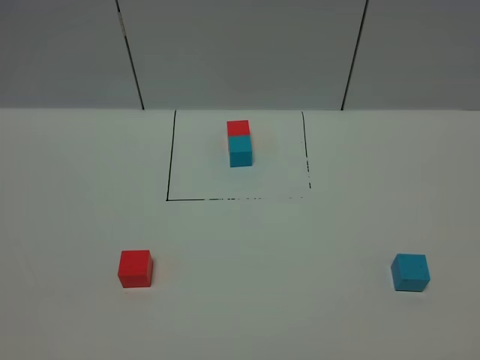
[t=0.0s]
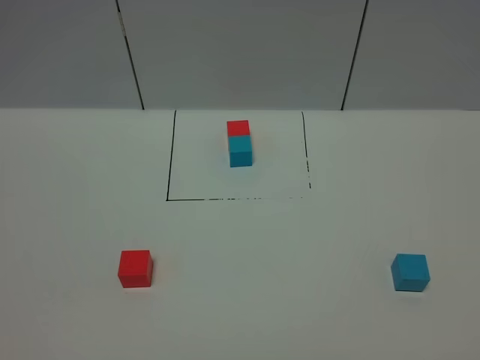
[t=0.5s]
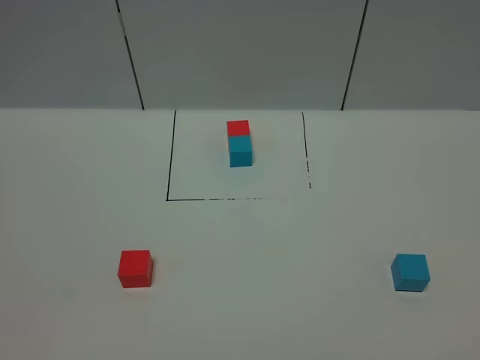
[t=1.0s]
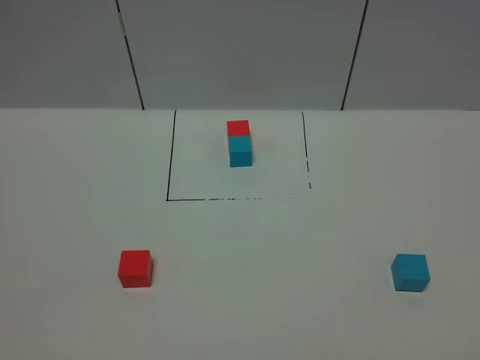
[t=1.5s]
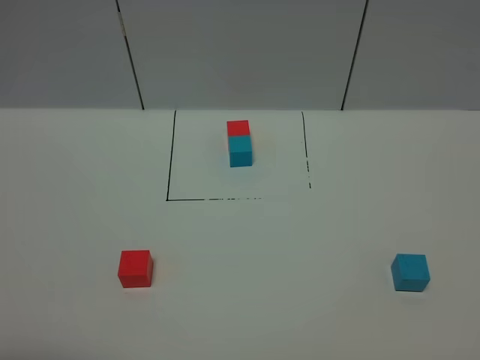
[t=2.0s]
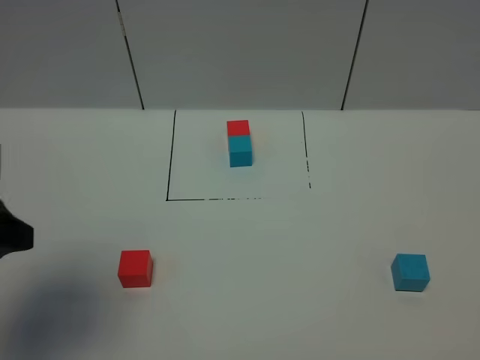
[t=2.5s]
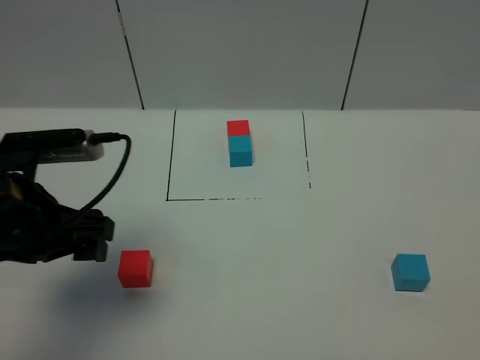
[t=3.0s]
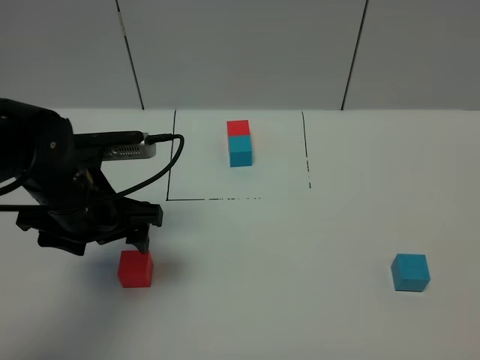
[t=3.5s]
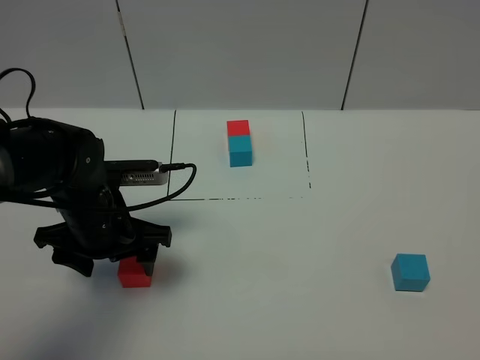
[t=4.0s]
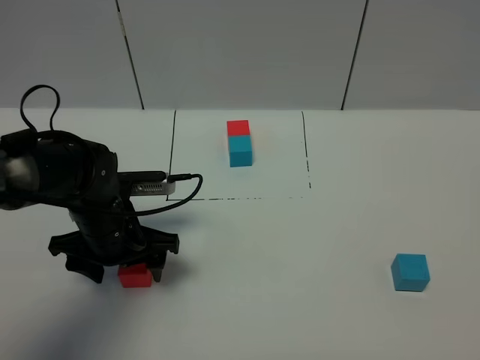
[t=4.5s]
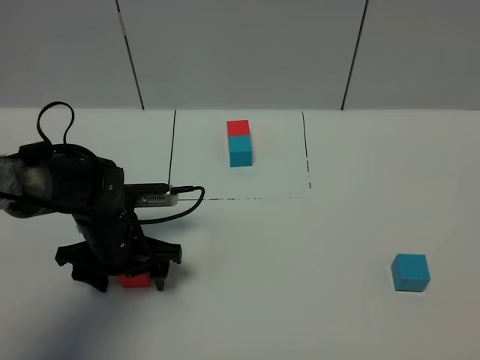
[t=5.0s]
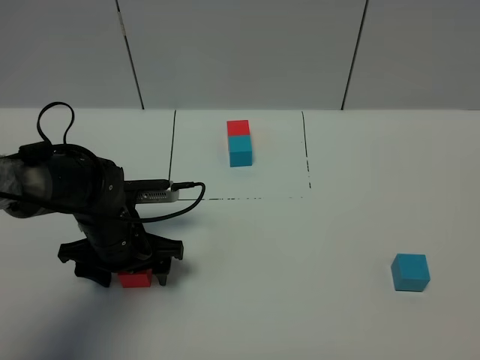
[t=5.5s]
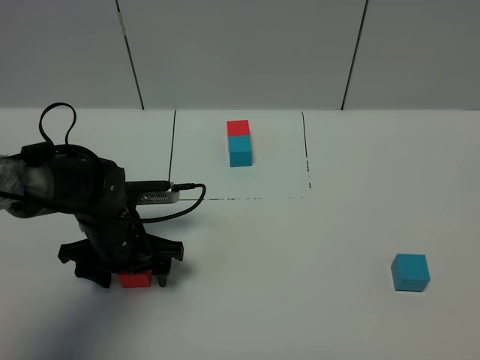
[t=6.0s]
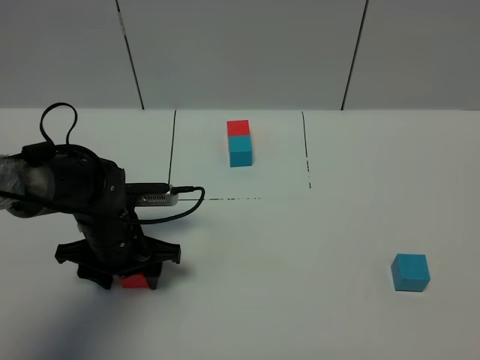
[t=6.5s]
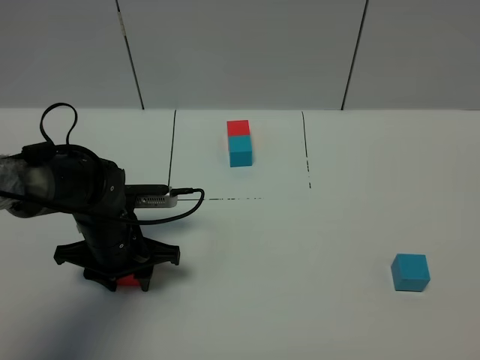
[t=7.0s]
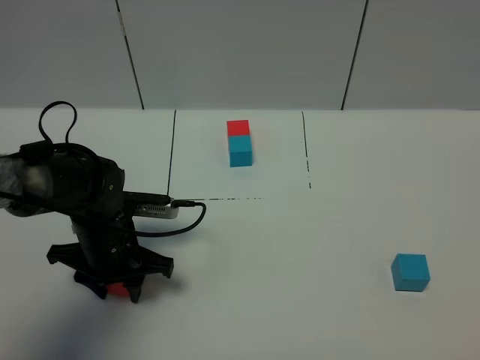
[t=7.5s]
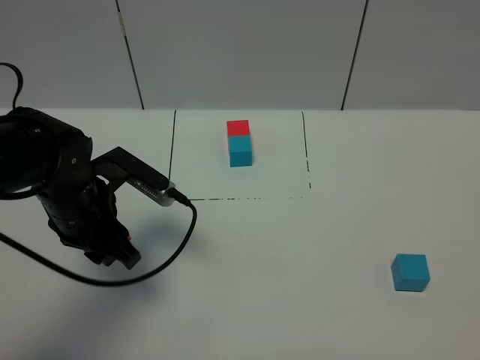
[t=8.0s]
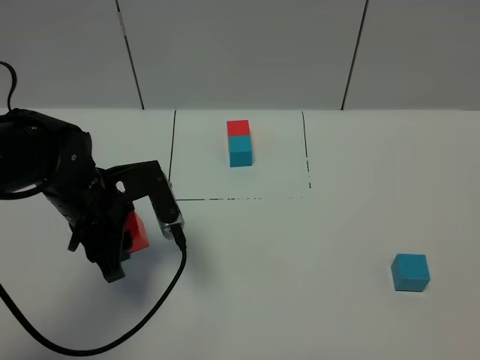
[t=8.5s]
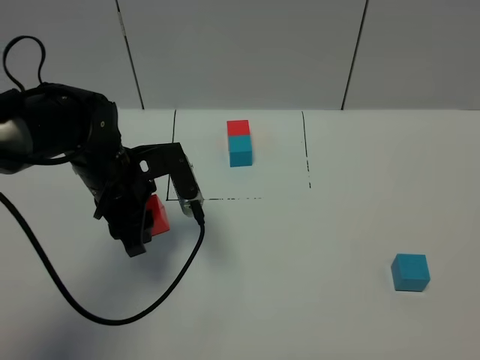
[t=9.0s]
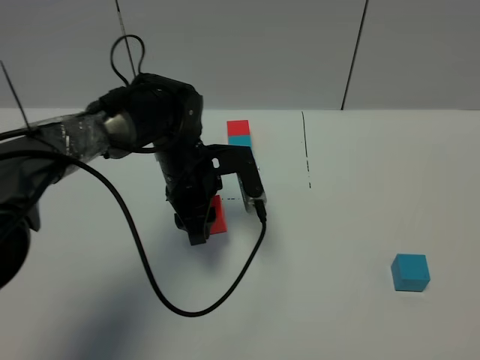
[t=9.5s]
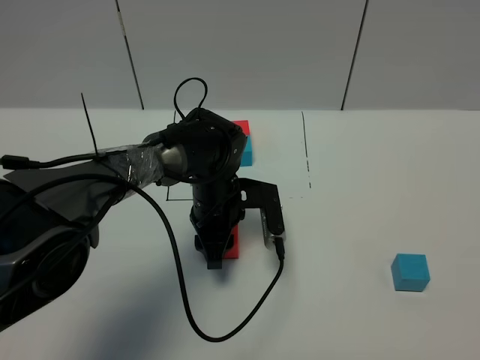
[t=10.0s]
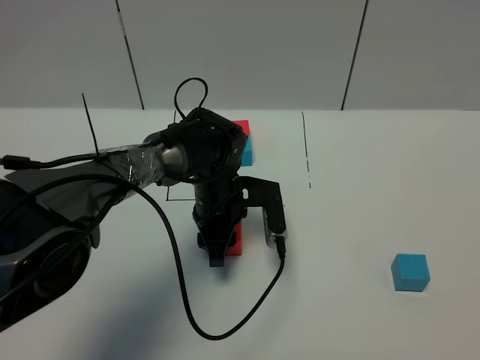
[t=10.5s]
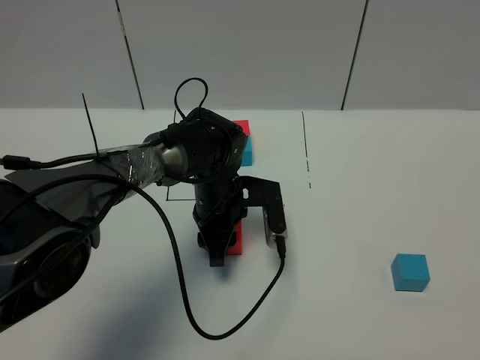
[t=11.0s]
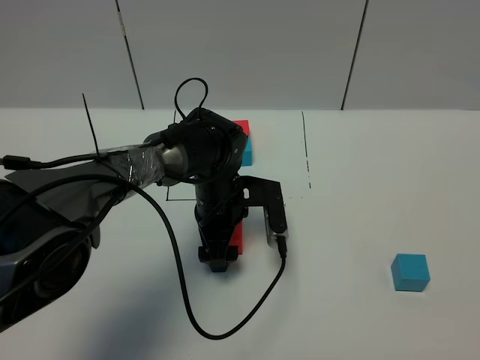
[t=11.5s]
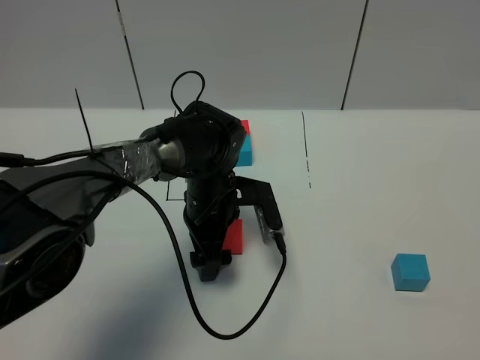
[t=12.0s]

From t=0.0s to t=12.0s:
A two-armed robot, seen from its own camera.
Task of the whole recording: According to the building block template in front, assemble the scattered blocks together.
Step, from t=0.0s to t=7.0s: Grasp the red block with left gripper.
From t=2.0s to t=4.0s: The left gripper goes approximately 30 cm forward, downward and to the right.
From t=4.0s to t=6.0s: The left gripper is displaced downward by approximately 5 cm.
From t=6.0s to t=8.0s: The left gripper is displaced upward by about 10 cm, and closes its fingers.
From t=8.0s to t=10.0s: The left gripper is displaced to the right, downward and forward by approximately 20 cm.
From t=10.0s to t=12.0s: The left gripper opens up.

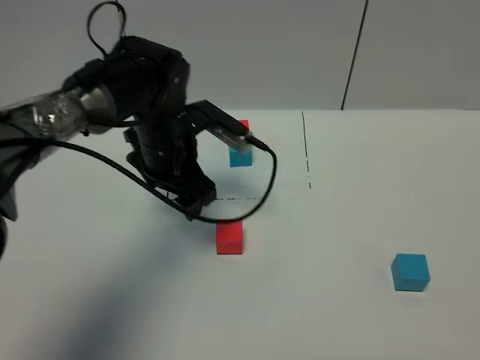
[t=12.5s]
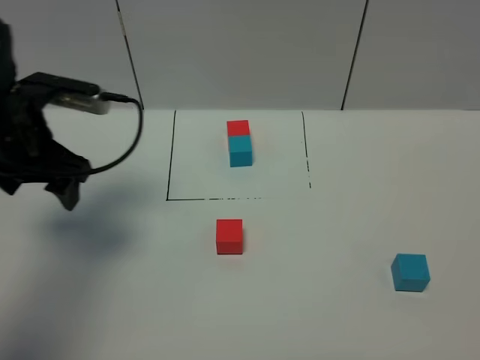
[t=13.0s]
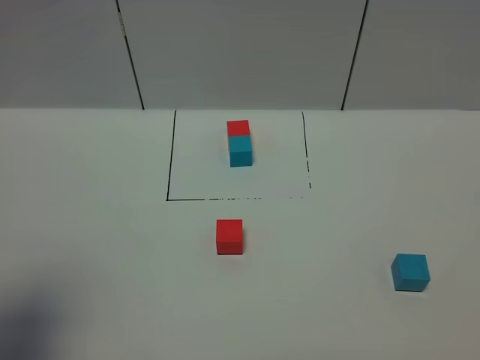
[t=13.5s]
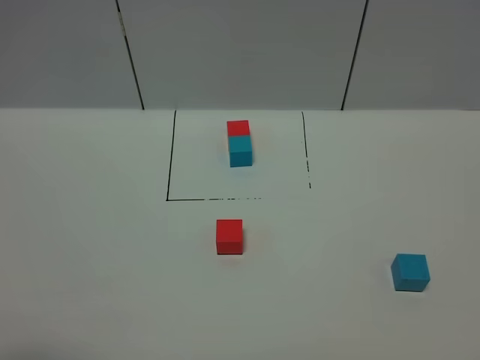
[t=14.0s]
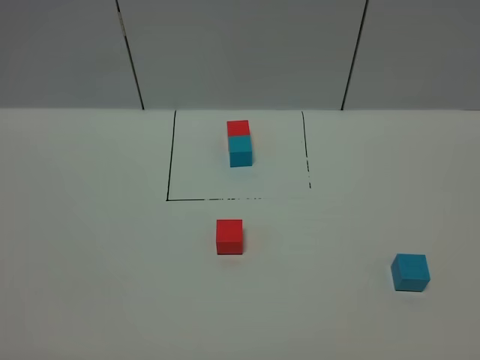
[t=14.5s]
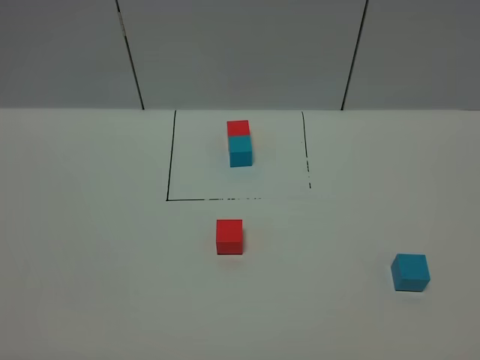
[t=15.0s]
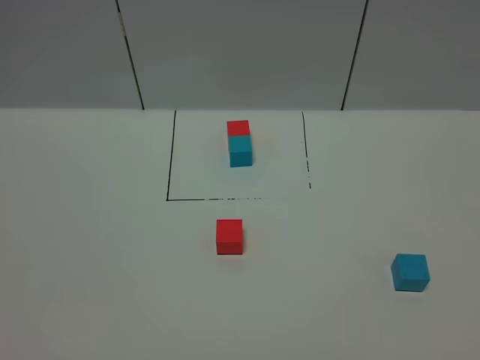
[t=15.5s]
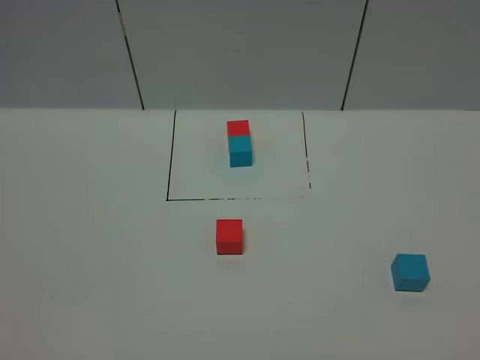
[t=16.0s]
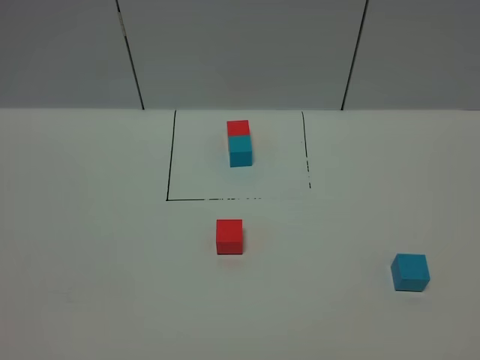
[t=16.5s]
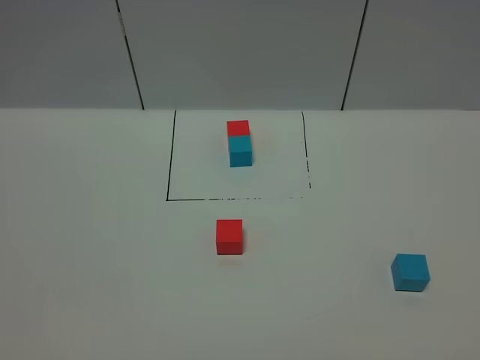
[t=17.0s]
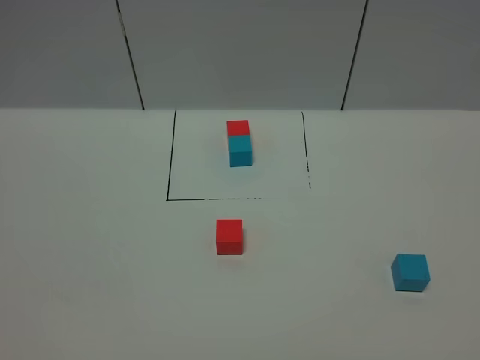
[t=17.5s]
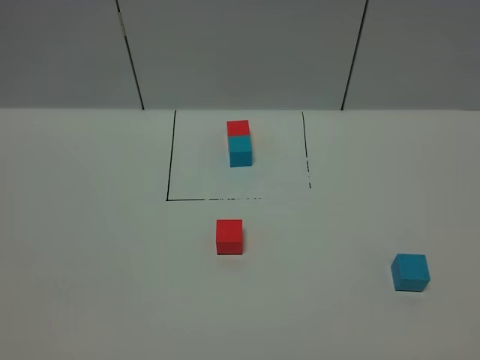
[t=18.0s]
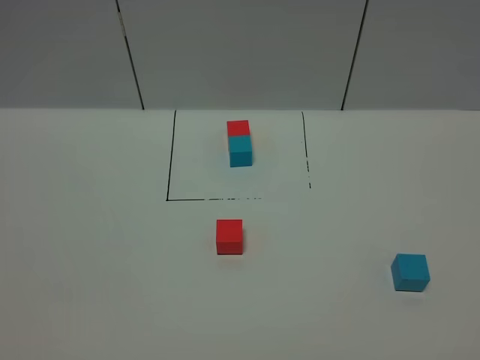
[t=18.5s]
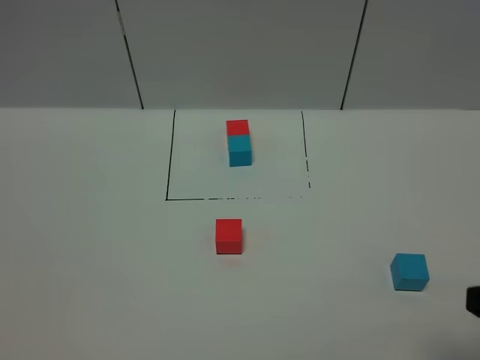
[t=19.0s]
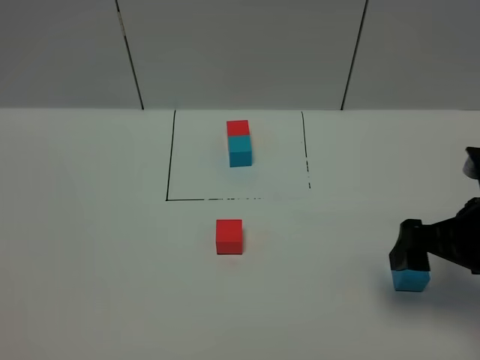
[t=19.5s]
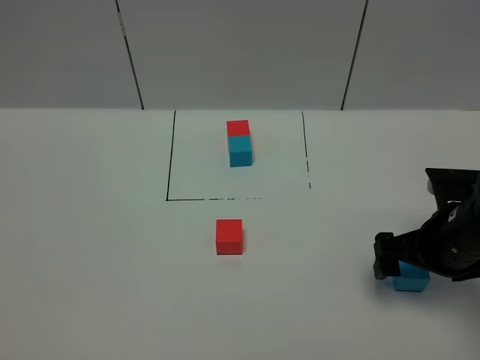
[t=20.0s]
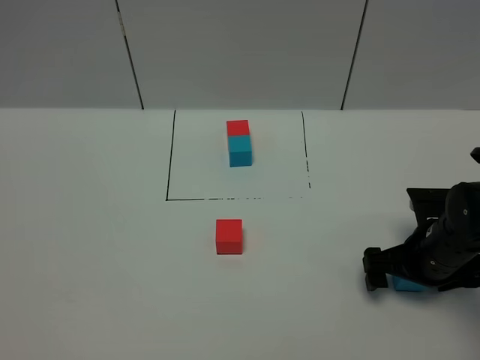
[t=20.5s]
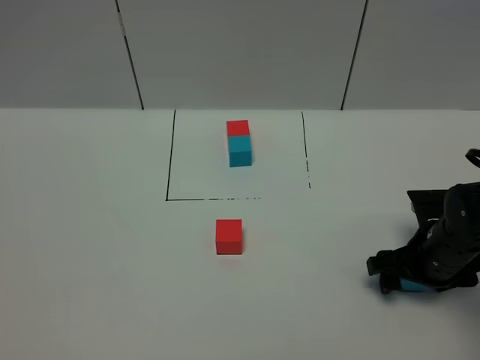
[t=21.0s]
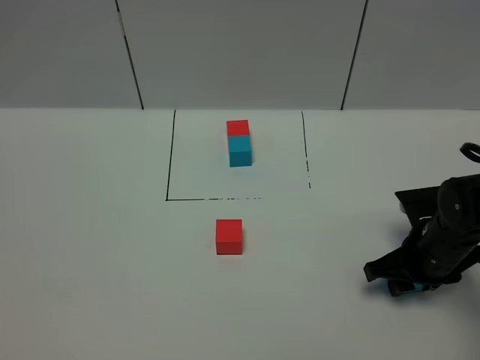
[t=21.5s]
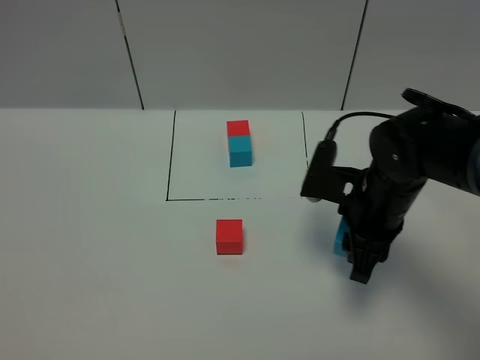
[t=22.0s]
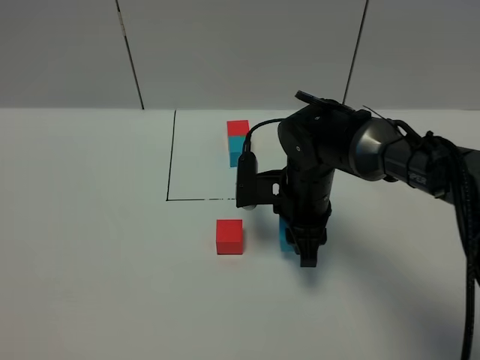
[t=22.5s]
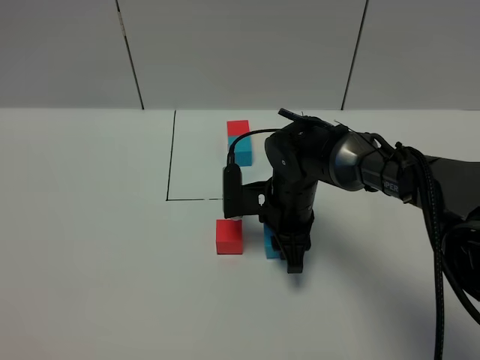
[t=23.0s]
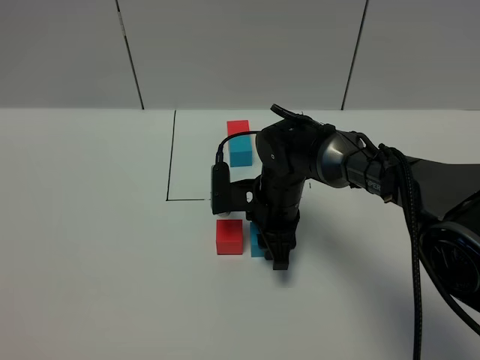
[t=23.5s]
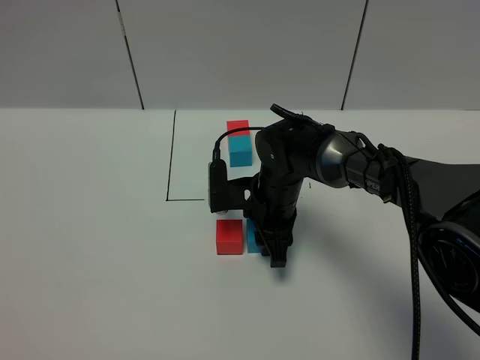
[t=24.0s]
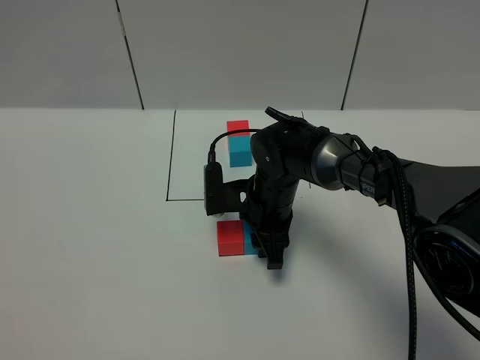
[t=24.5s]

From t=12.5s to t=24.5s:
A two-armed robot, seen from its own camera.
Task of the whole recording: According to the building block template in front, assemble the scattered blocks together.
Step, from t=12.5s to t=21.0s: Grasp the blue block with right gripper.
From t=12.5s to t=14.5s: The left gripper moves backward and to the left, roughly 40 cm.
From t=16.5s to t=18.5s: The two grippers keep their place.
From t=18.5s to t=20.5s: The right gripper heads forward and downward, covering about 35 cm.
From t=20.5s to t=22.5s: The right gripper moves to the left and forward, about 20 cm, and closes its fingers.
From t=22.5s to t=24.5s: The right gripper ends up approximately 5 cm from where it was.

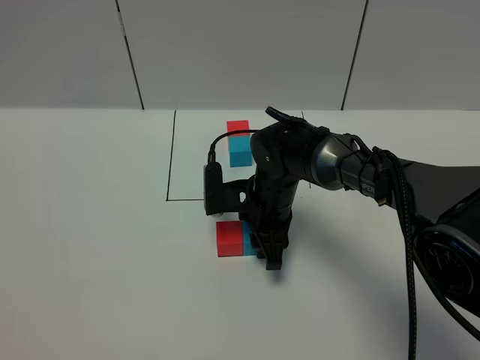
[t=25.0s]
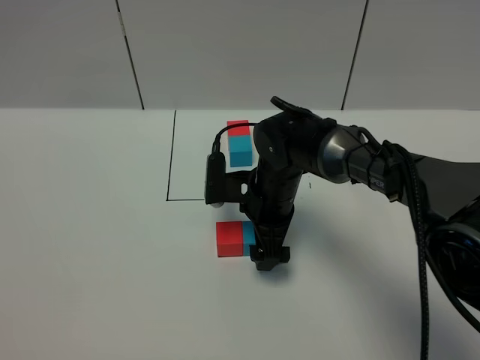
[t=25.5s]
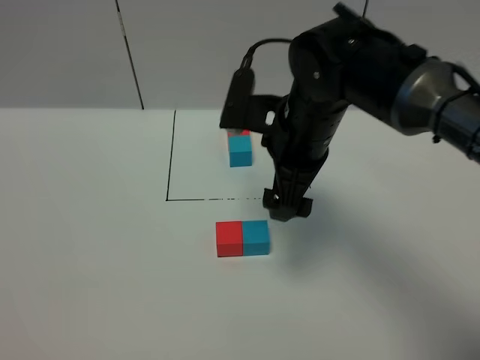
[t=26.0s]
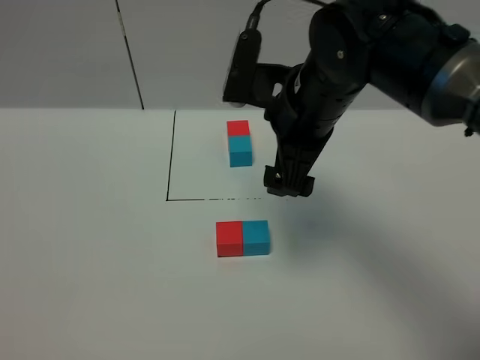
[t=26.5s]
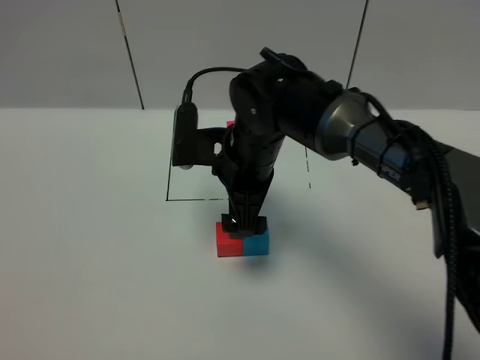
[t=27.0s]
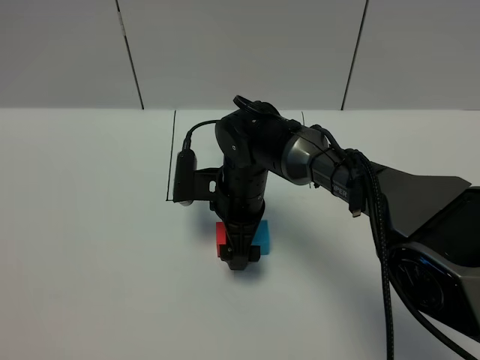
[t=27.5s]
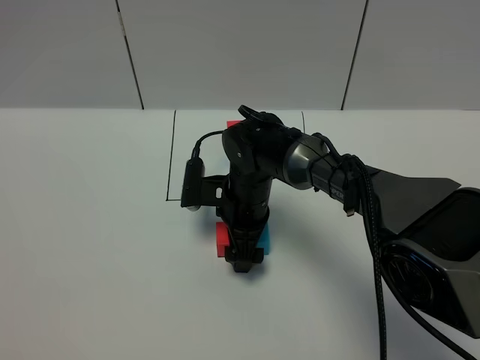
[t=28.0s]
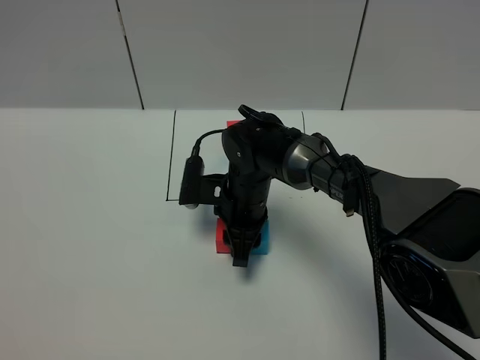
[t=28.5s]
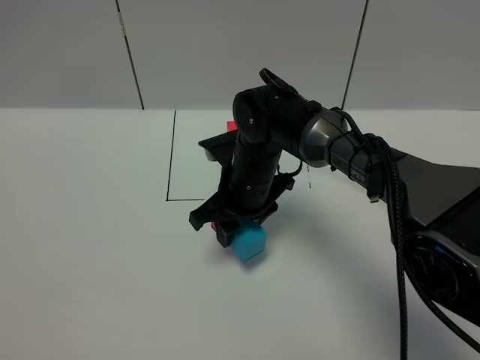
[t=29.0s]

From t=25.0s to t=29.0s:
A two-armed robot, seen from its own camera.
Task of the whole recording: According to the building block template in front, assemble the scattered blocks together.
From t=25.0s to t=27.0s: The right gripper moves upward, some 10 cm, and opens up.
From t=27.0s to t=29.0s: The right gripper is displaced downward by roughly 5 cm, and closes its fingers.
